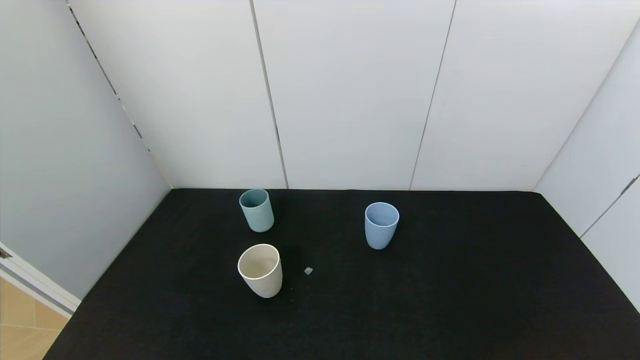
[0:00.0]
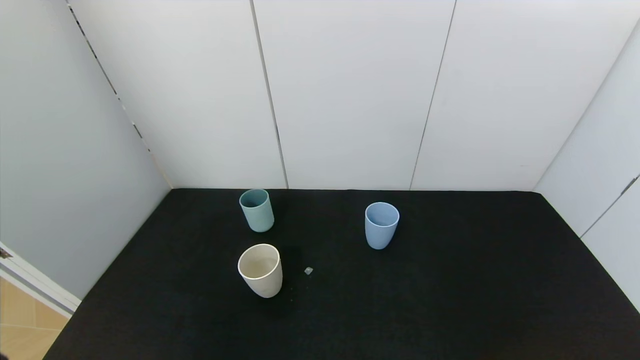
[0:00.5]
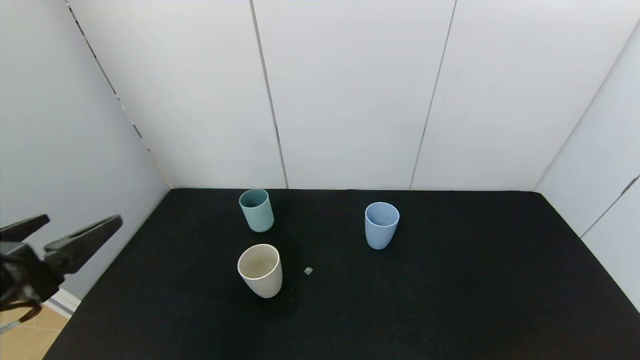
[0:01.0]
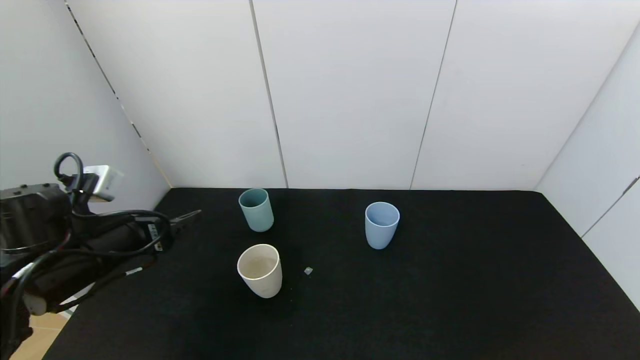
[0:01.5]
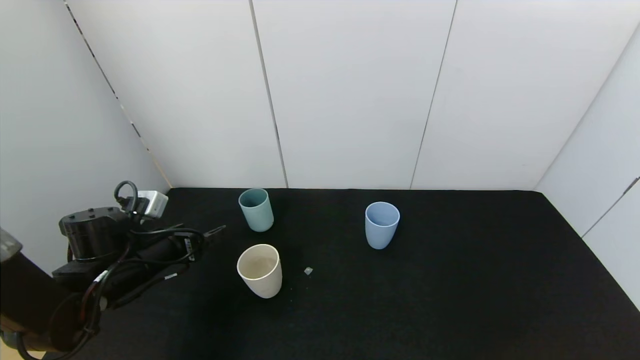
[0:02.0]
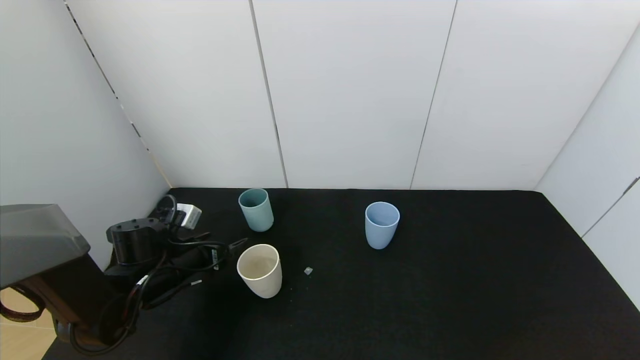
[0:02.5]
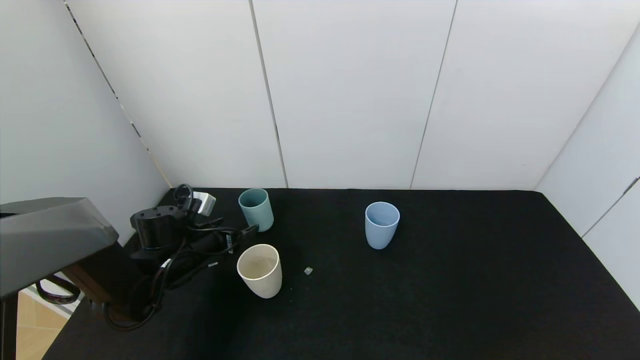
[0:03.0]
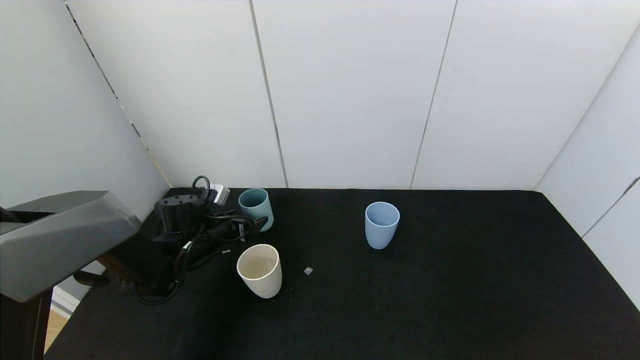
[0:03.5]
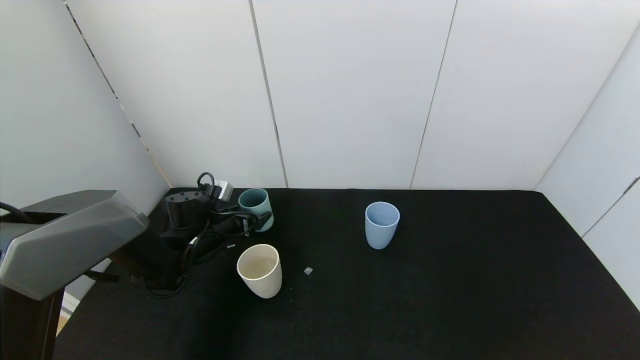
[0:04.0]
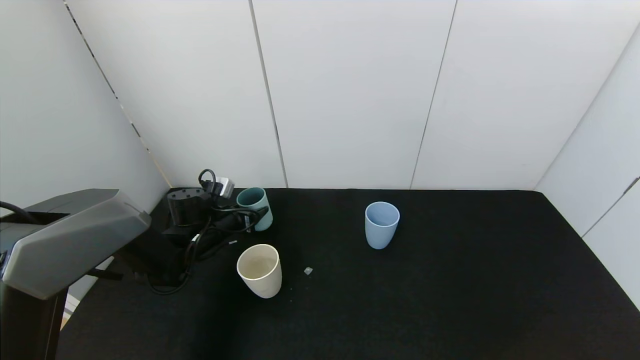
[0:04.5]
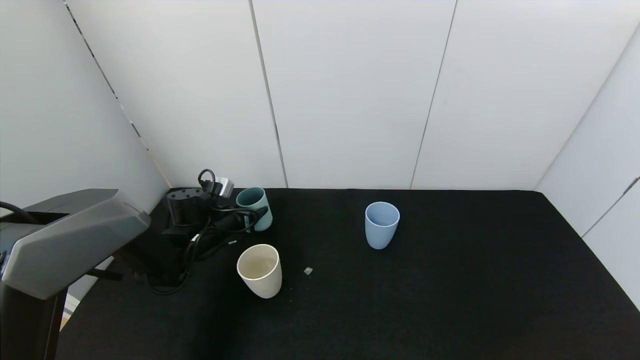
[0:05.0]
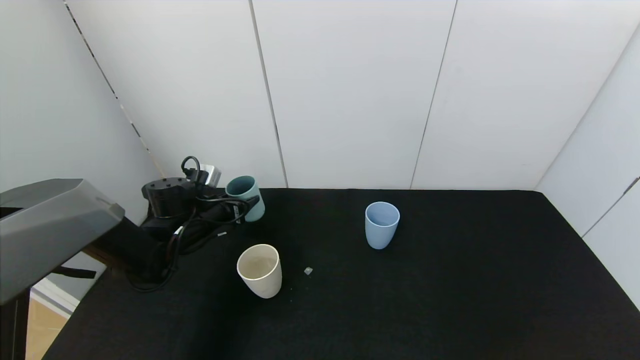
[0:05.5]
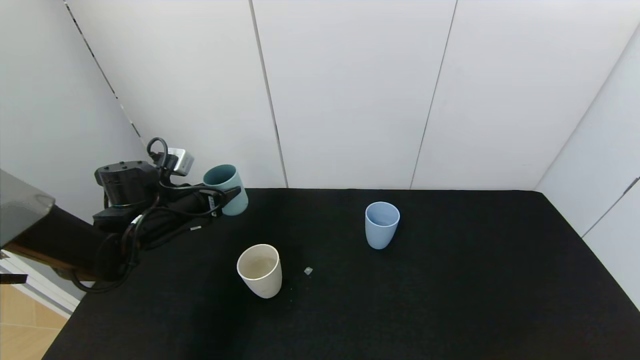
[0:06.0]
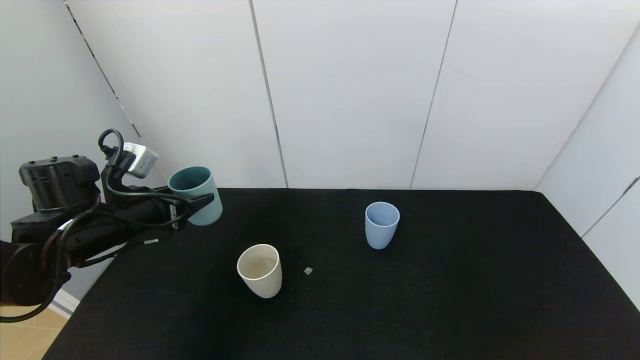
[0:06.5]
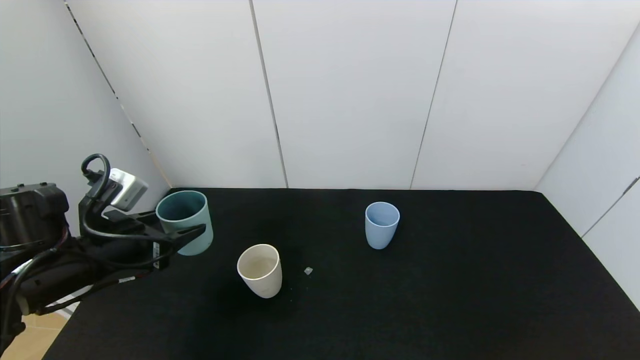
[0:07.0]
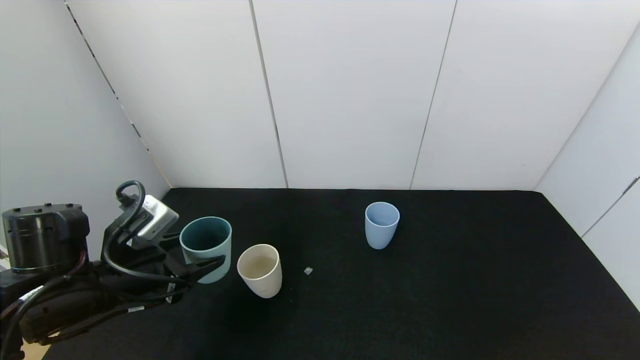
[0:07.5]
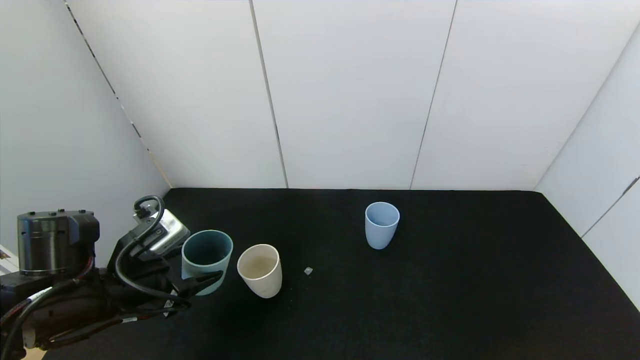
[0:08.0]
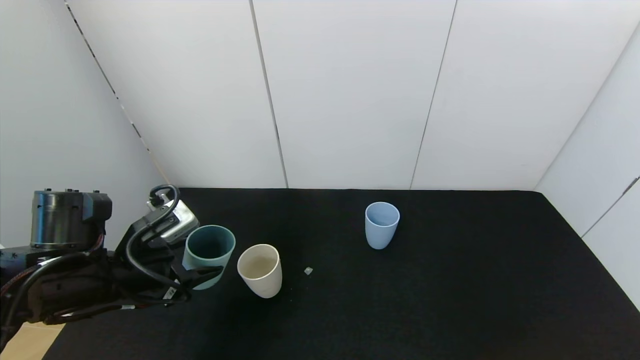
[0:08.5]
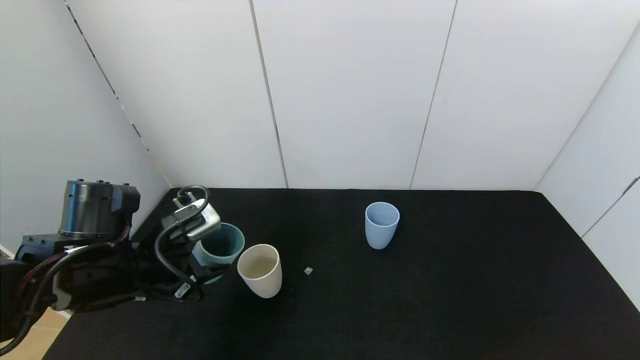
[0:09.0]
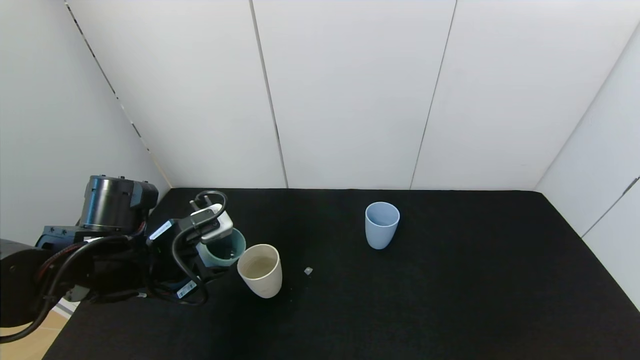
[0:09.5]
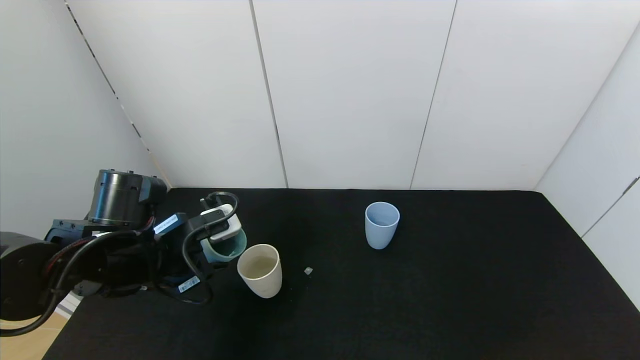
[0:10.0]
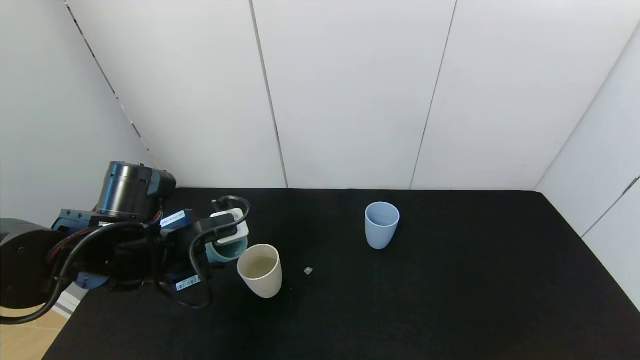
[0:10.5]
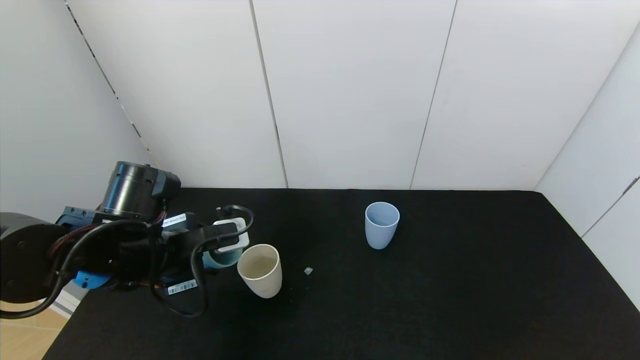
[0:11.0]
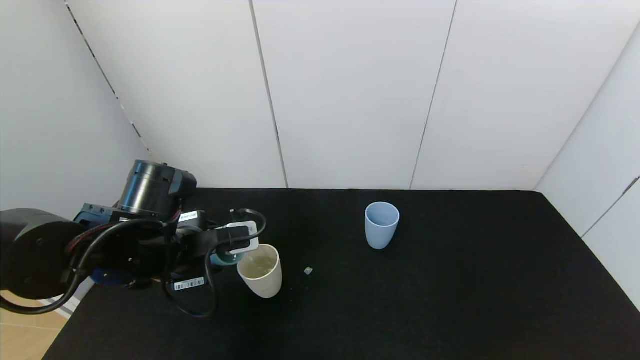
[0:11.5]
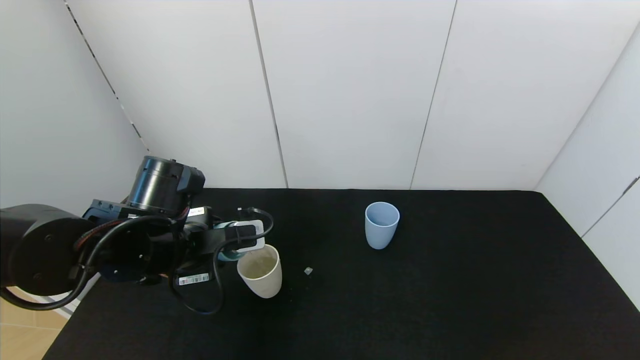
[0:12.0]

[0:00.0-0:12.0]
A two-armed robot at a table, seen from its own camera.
Task of the whole recording: use the gripper to pour the water into the other two cups on black table.
Step, 0:00.0 to 0:04.5: Grasp the green cup with the left gripper.
0:00.0 to 0:02.0: The left gripper is displaced forward by some 35 cm.
0:02.0 to 0:04.0: The left gripper goes some 10 cm forward.
0:04.0 to 0:06.0: The left gripper goes approximately 10 cm upward, and closes.
0:06.0 to 0:08.0: The left gripper heads backward, covering some 15 cm.
0:08.0 to 0:10.0: The left gripper changes place by about 5 cm.

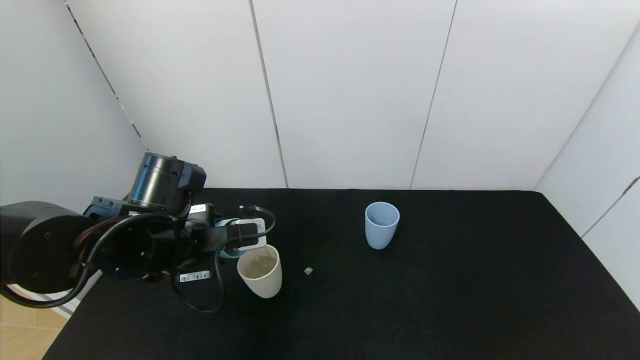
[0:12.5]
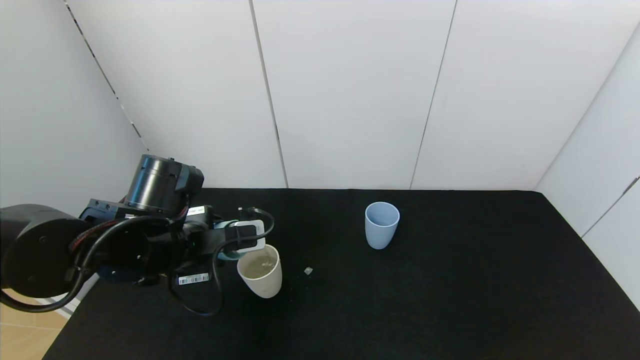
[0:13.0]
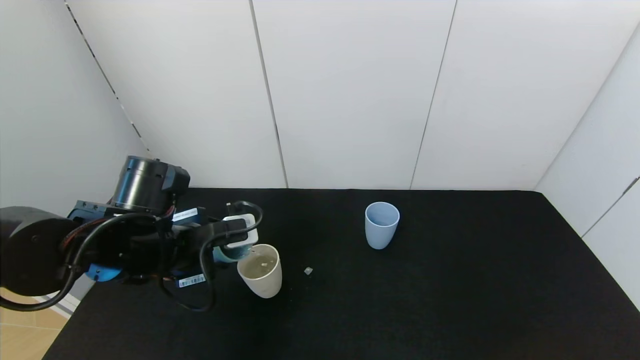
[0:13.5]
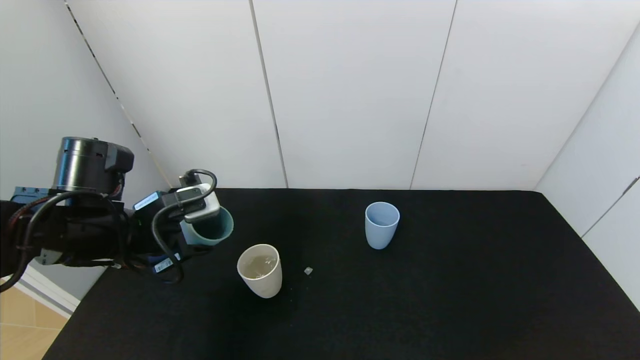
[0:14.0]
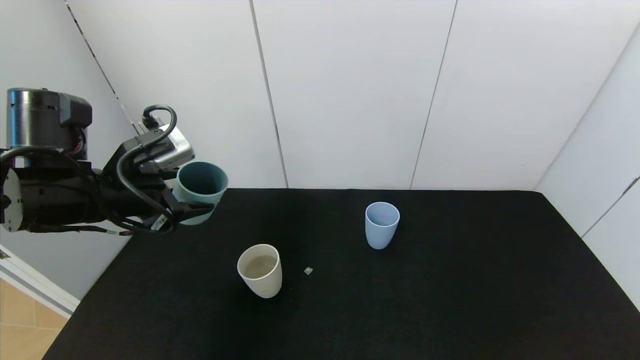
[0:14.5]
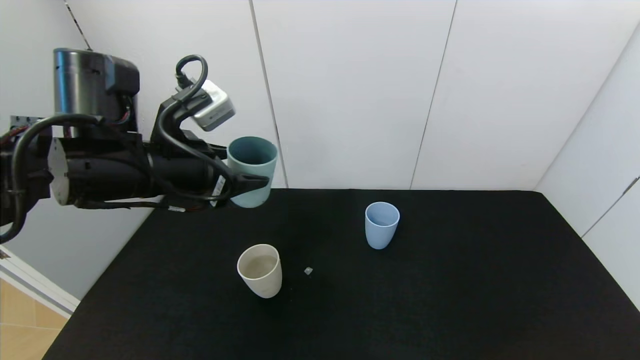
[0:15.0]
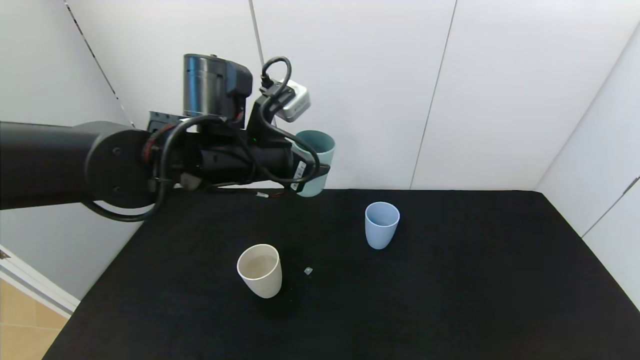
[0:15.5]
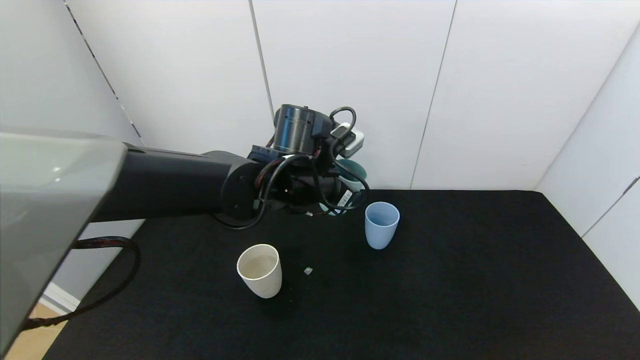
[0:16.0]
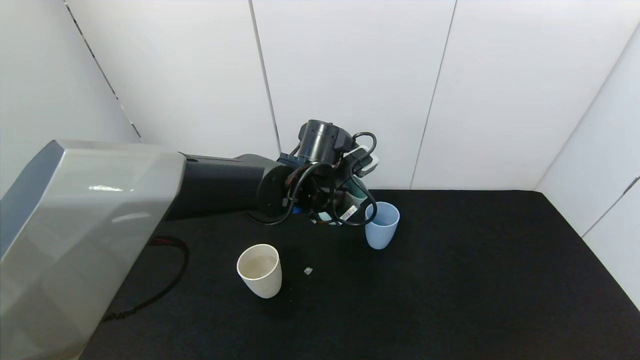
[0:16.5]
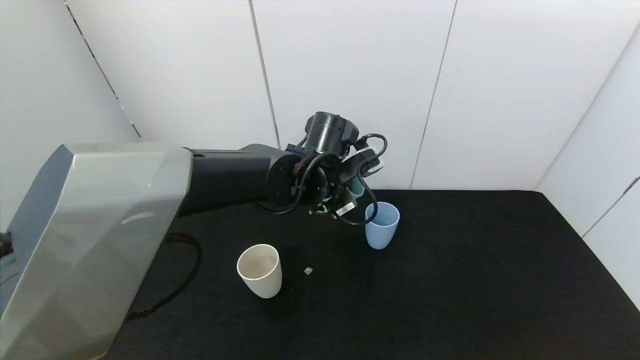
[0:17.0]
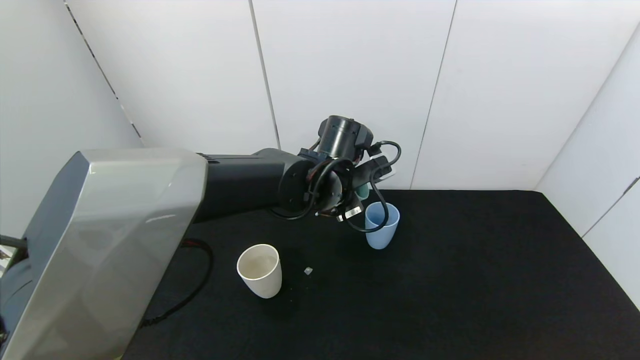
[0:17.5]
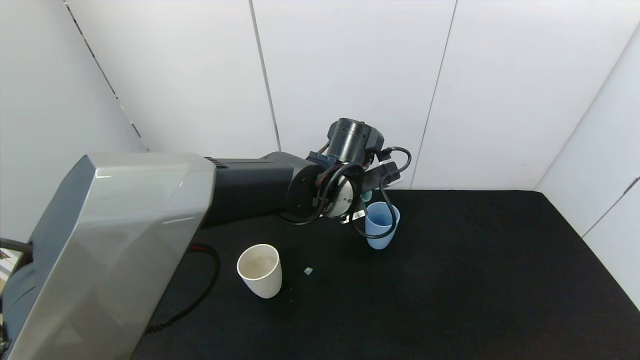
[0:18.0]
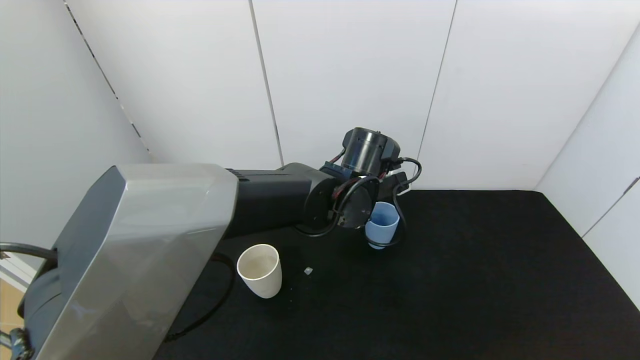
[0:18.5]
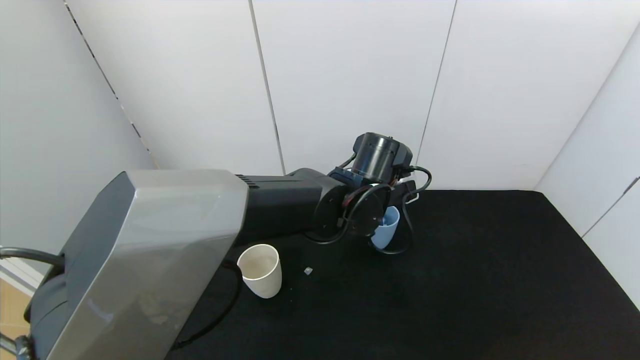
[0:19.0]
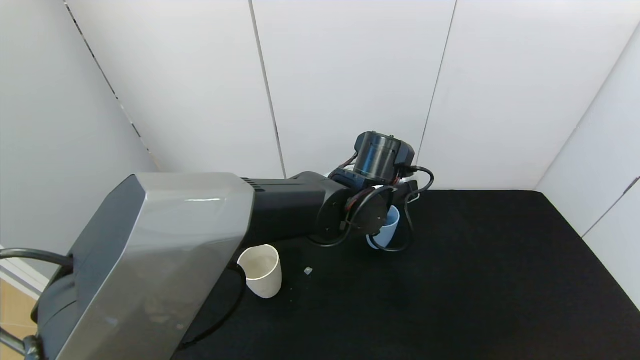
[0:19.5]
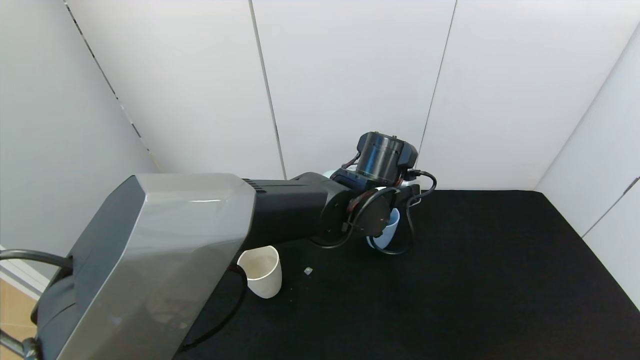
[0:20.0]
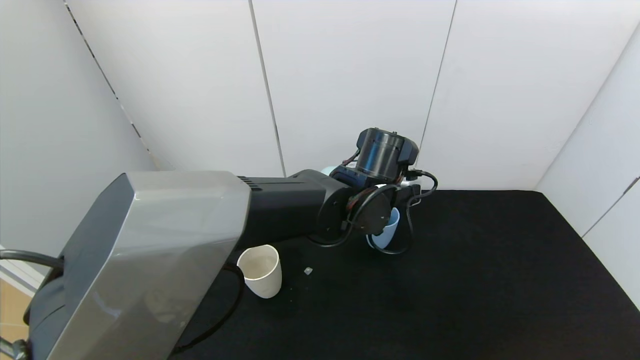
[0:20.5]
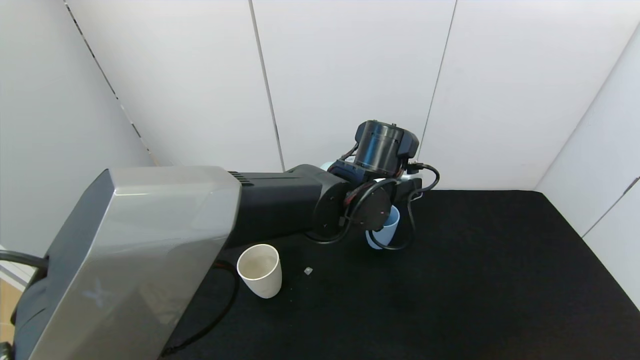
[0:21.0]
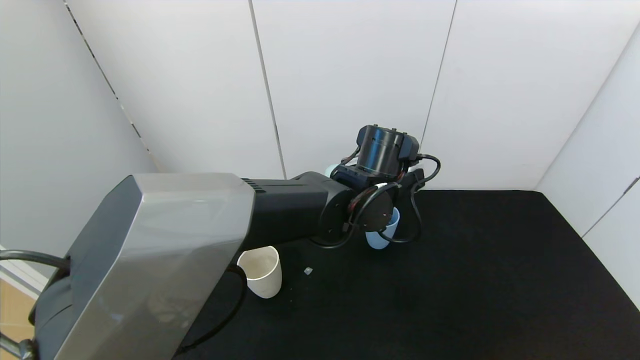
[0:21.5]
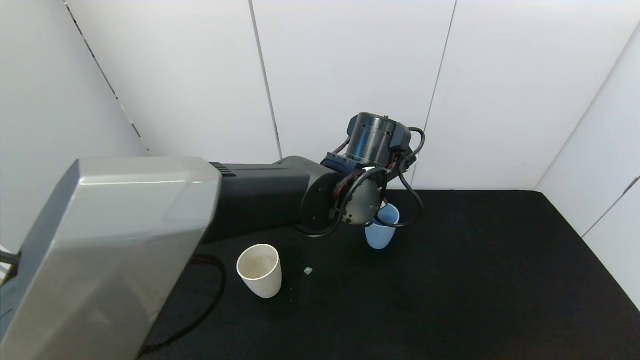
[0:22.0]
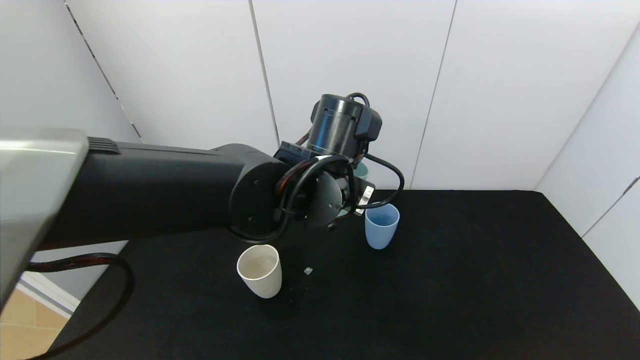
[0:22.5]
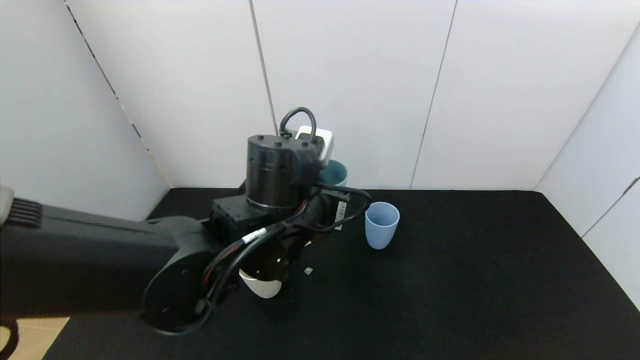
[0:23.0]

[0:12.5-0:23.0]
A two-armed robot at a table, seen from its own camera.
Task of the whole recording: use the gripper to pour the water into the other two cups on black table.
Step, 0:14.0 to 0:22.0: Pour water from green cup to blue cup with the left gripper.
0:12.5 to 0:14.5: The left gripper moves to the left and upward, roughly 10 cm.
0:14.5 to 0:16.5: The left gripper goes approximately 25 cm to the right and forward.
0:16.5 to 0:19.0: The left gripper goes some 5 cm to the right.
0:19.0 to 0:21.0: The grippers make only small movements.
0:21.0 to 0:23.0: The left gripper goes approximately 10 cm to the left and backward.
